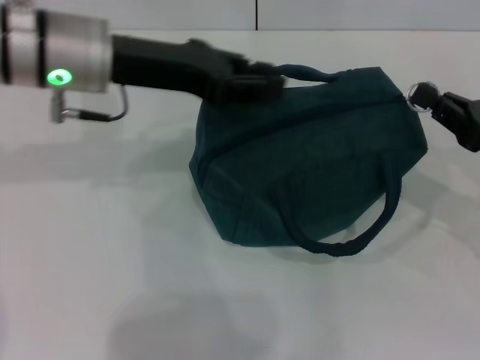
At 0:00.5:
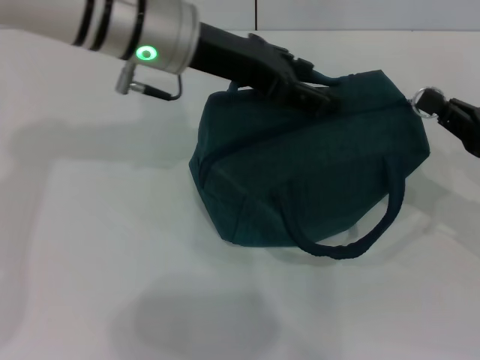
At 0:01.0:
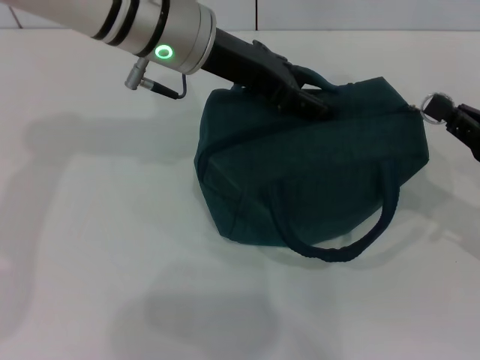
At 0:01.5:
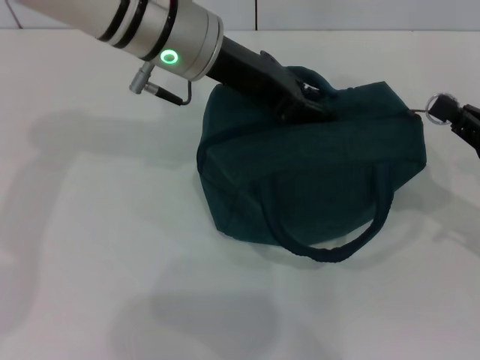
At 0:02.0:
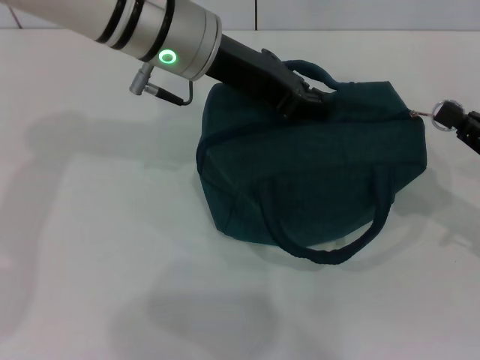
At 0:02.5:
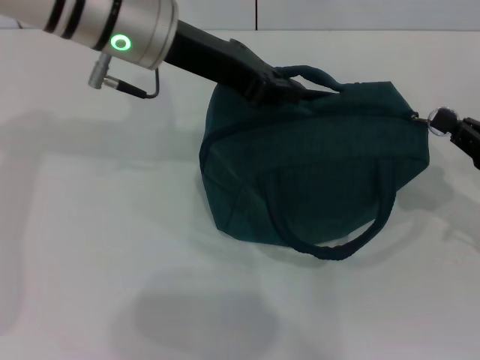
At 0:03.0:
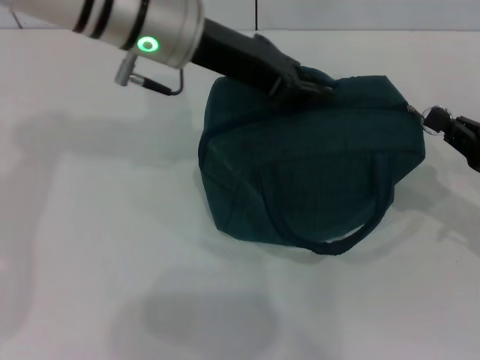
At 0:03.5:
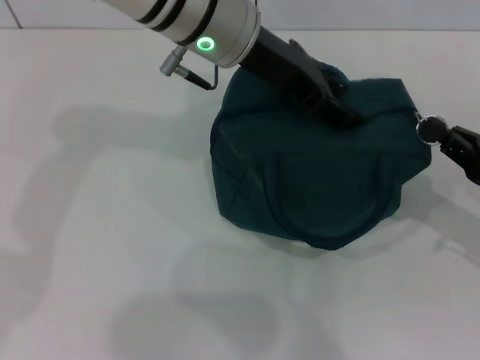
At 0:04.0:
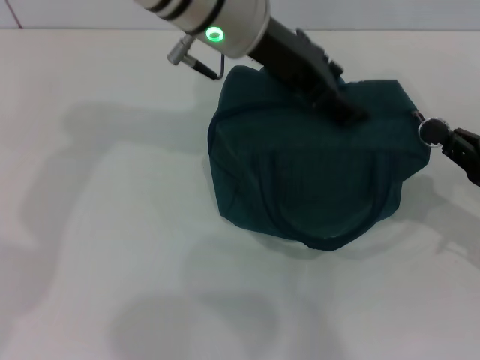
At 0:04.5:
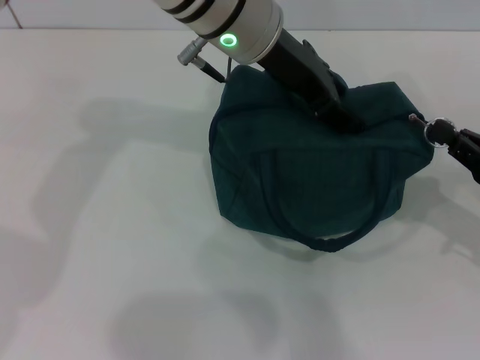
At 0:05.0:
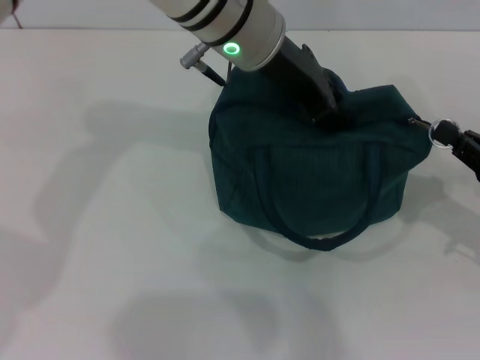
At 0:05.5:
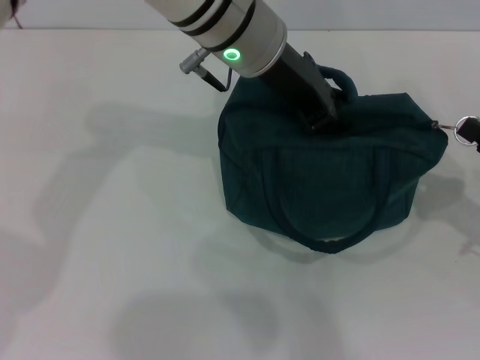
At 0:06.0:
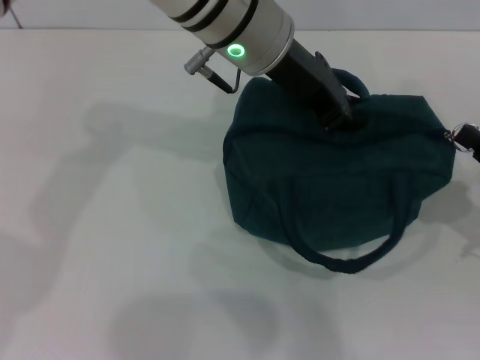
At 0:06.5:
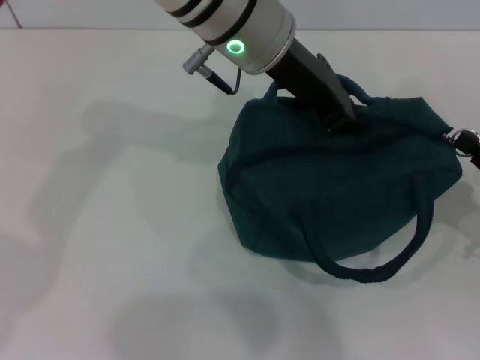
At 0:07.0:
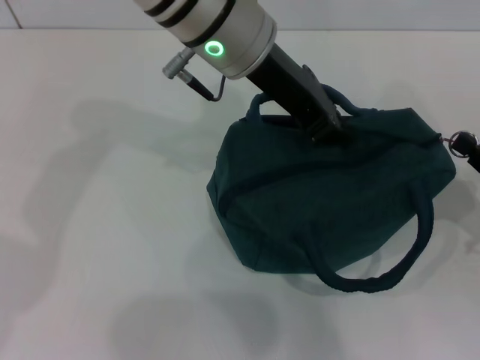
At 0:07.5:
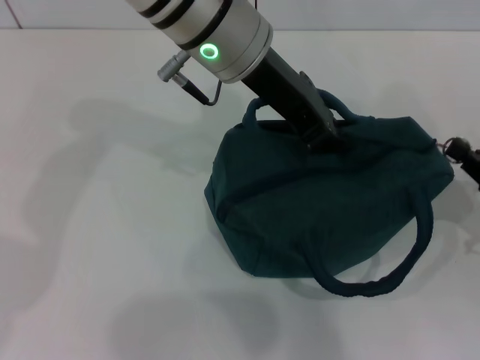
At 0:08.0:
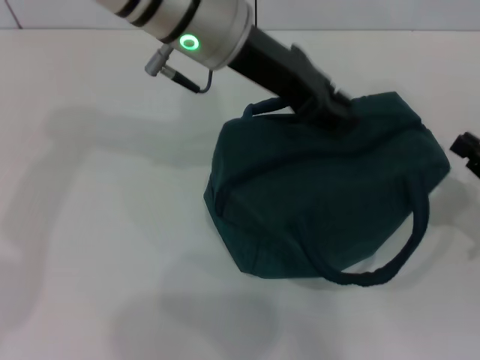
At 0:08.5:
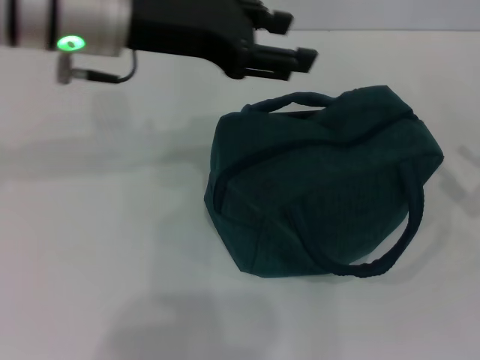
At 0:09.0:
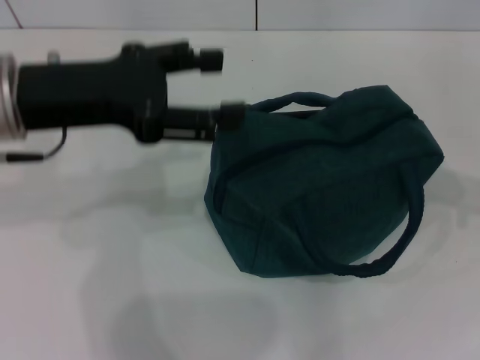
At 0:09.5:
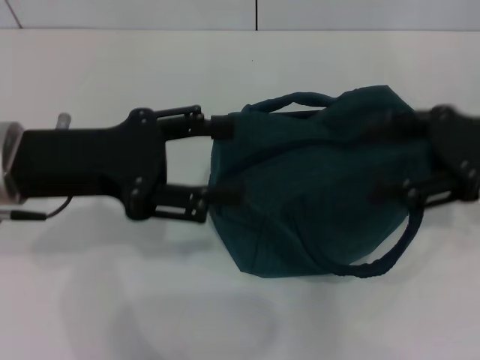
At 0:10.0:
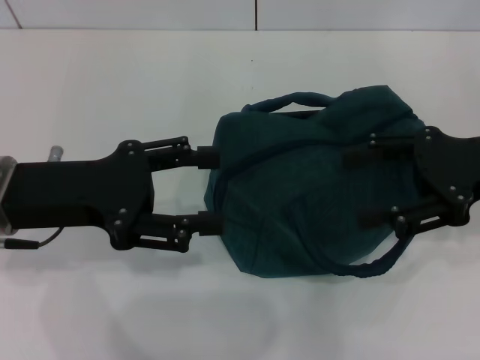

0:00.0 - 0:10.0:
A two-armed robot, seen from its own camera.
Step, 0:00.0 - 0:07.5: Zip up the lunch bag with your right hand.
0:00.0 - 0:02.0: The left gripper moves to the right, about 10 cm, and opens, then closes once more.
0:02.0 - 0:04.0: The left gripper opens its fingers.
0:04.0 - 0:06.0: The left gripper closes.
0:06.0 - 0:08.0: There are only small adjustments of the grippers.
0:08.0 - 0:10.0: The right gripper goes roughly 15 cm upward, to the left and forward, and opens, while the left gripper is displaced to the left, backward and downward by approximately 25 cm, and opens.
